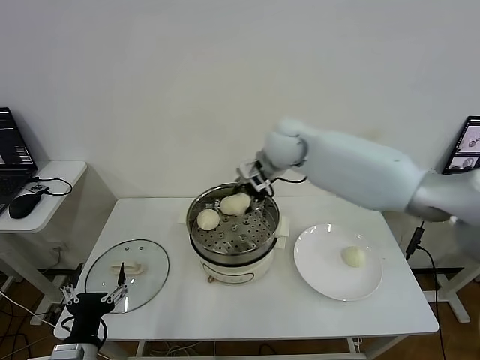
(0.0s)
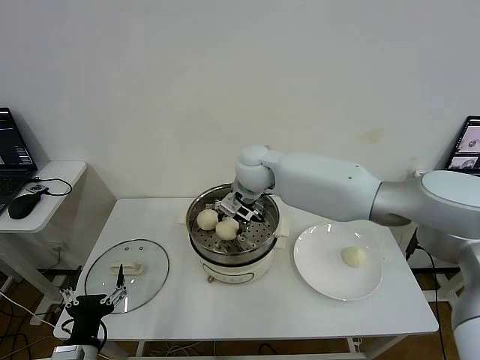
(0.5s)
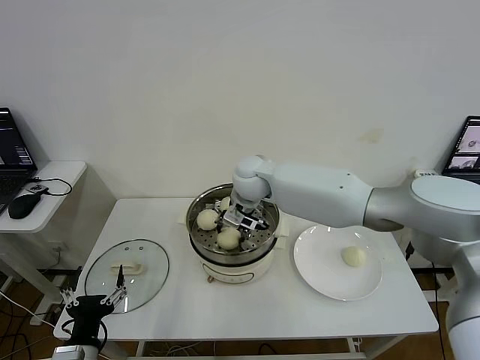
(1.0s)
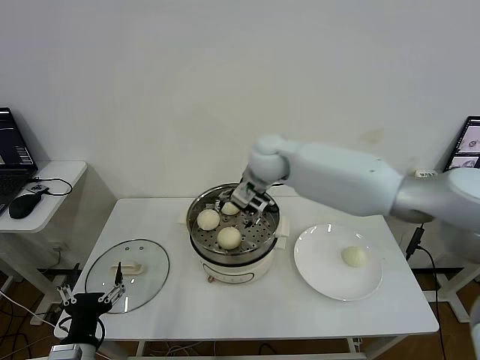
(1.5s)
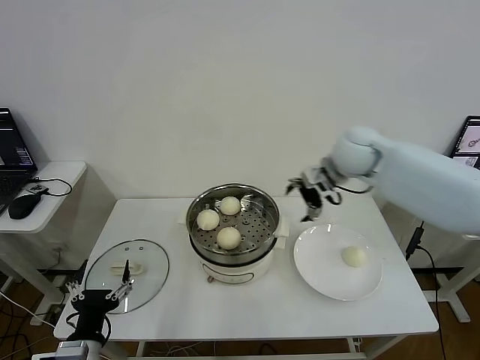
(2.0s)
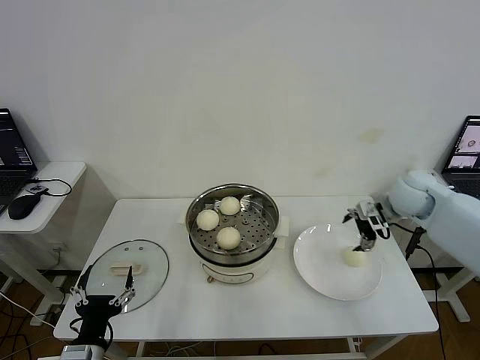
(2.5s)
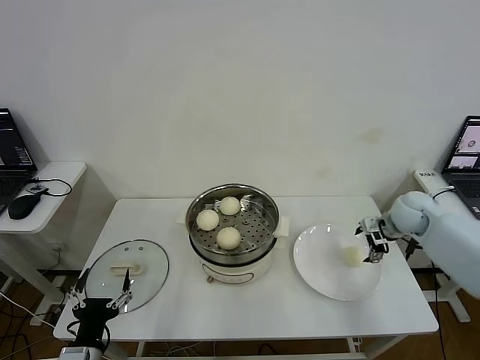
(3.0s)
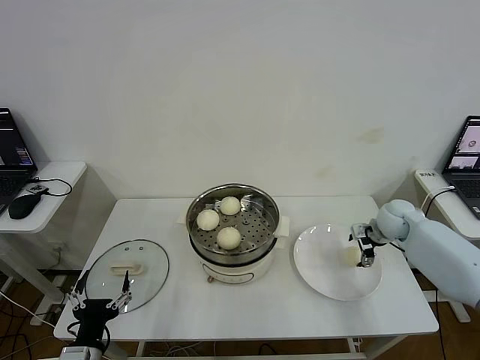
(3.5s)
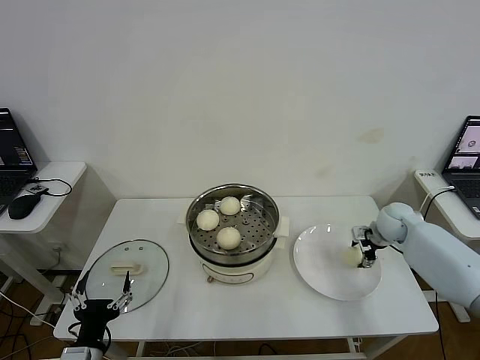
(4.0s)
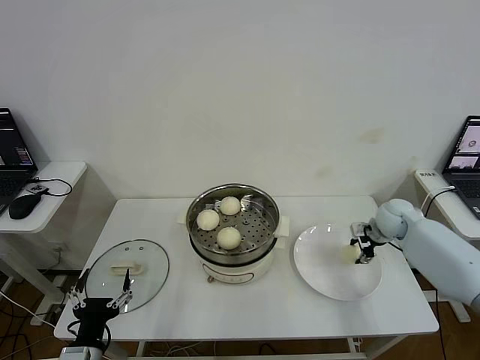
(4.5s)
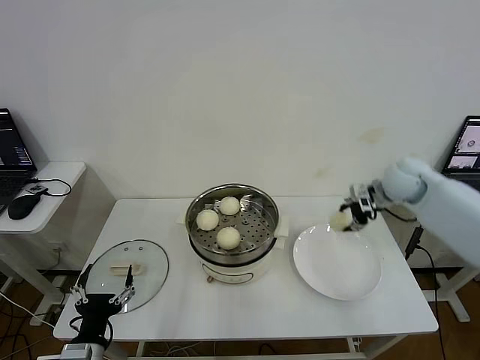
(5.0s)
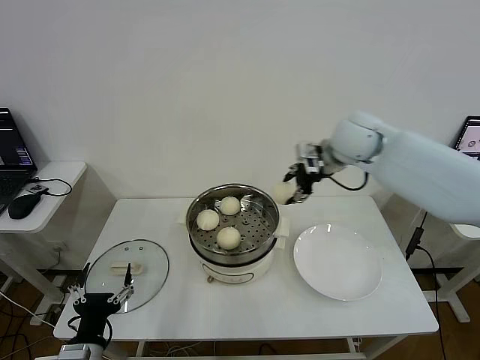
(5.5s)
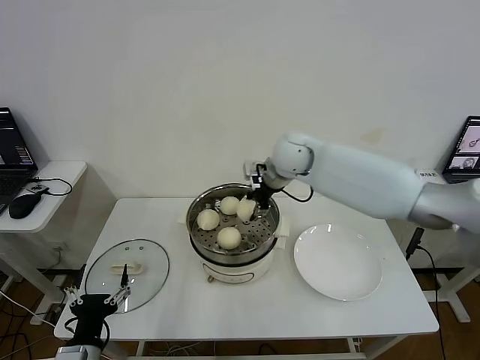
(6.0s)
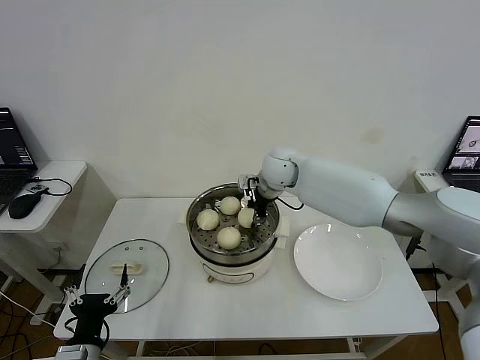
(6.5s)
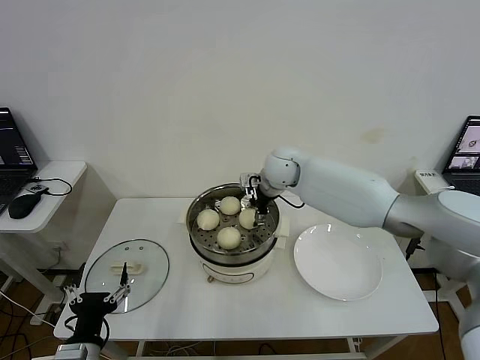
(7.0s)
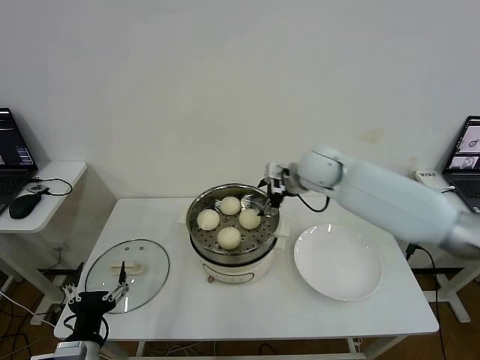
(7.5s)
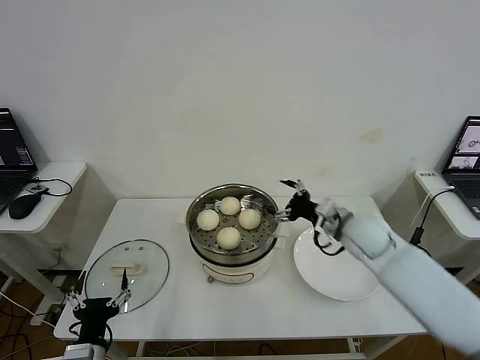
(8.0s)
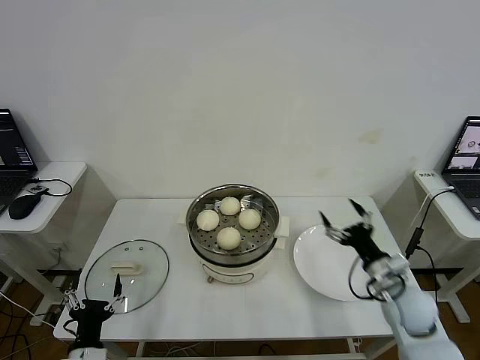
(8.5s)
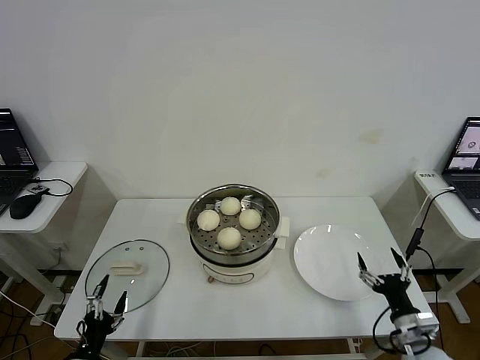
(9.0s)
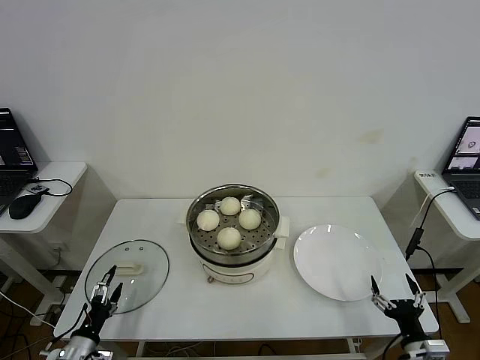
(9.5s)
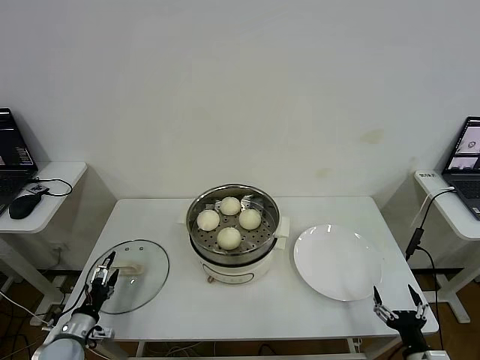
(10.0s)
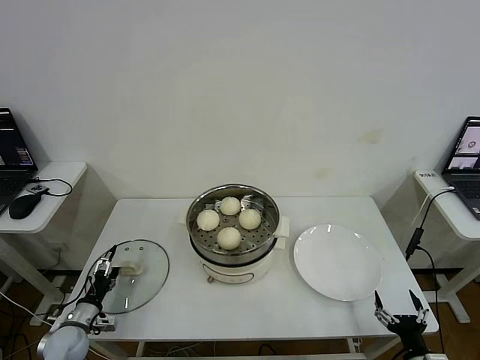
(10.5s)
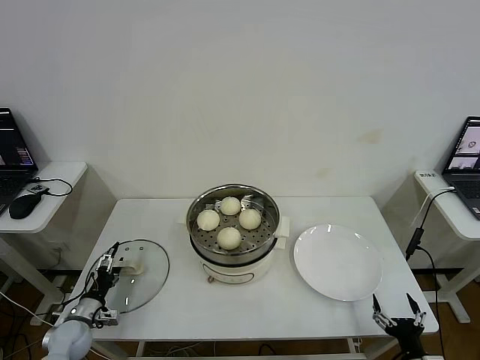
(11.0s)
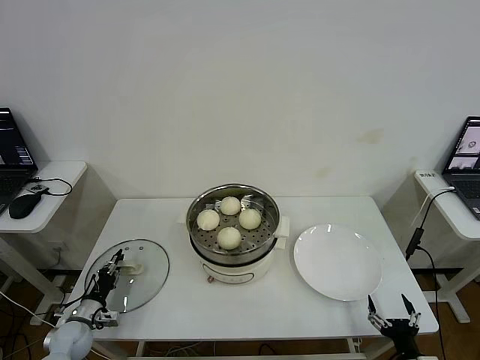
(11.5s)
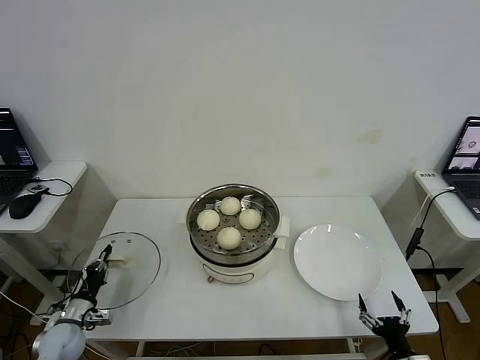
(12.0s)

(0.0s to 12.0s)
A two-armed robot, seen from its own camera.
Step, 1.5s - 4.0s: Grasp the baozi in the plate with right gripper.
Step, 4.5s - 7.0s: Place the baozi on the steamer with right gripper.
Step, 7.5s - 11.5s: Grasp the pot lid with left gripper.
0.0s - 2.0s: The right gripper shifts some 20 cm to the right, and opens up.
2.0s - 4.0s: The right gripper is displaced downward and to the right by approximately 25 cm, and closes.
4.0s - 6.0s: The right gripper is displaced to the left and upward by roughly 35 cm.
6.0s - 8.0s: The right gripper heads to the right, backward and downward, covering approximately 25 cm, and opens its fingers.
8.0s - 10.0s: The left gripper is displaced to the left, downward and forward by approximately 20 cm. The right gripper shifts about 35 cm backward, downward and to the right.
10.0s - 12.0s: The left gripper closes its fingers.

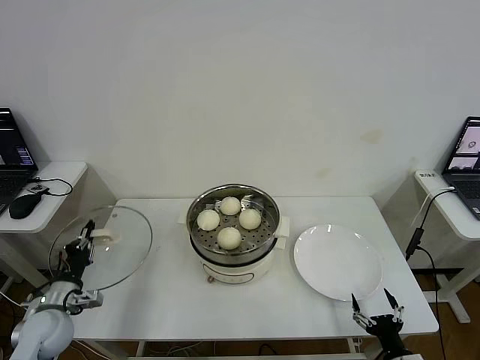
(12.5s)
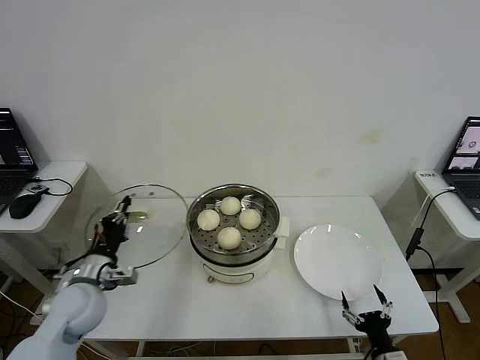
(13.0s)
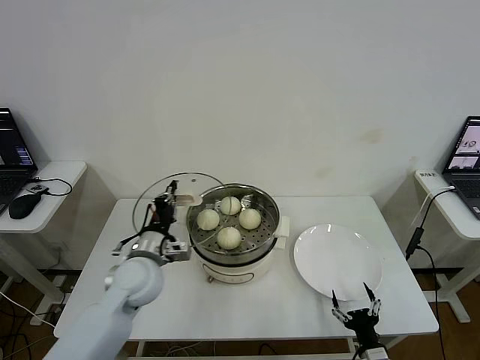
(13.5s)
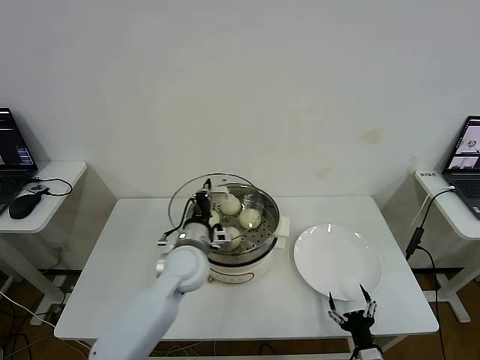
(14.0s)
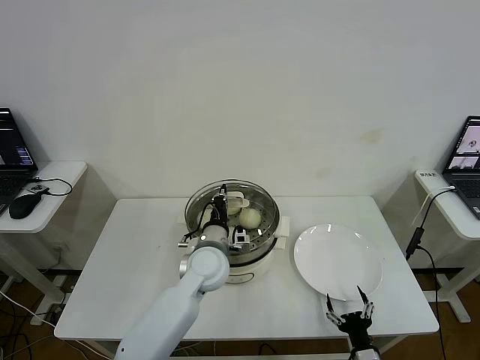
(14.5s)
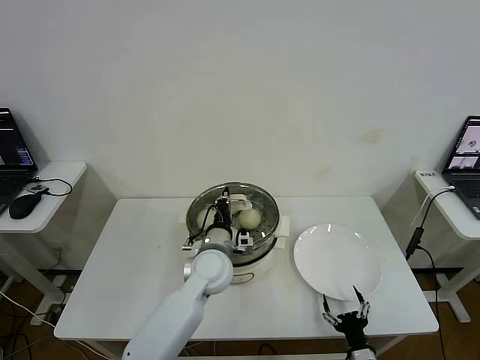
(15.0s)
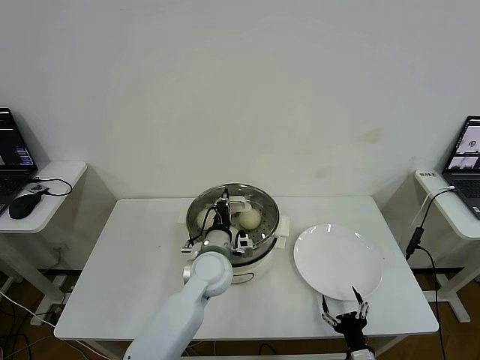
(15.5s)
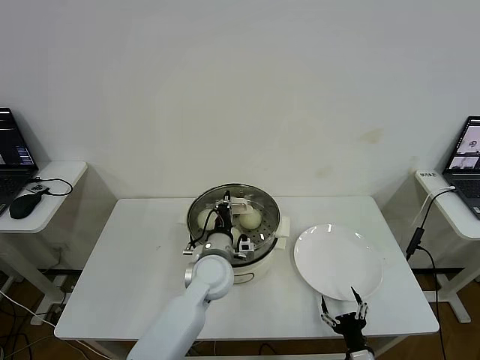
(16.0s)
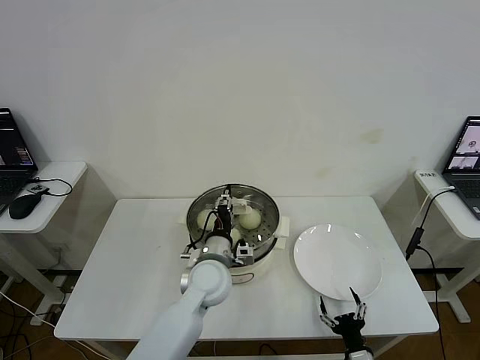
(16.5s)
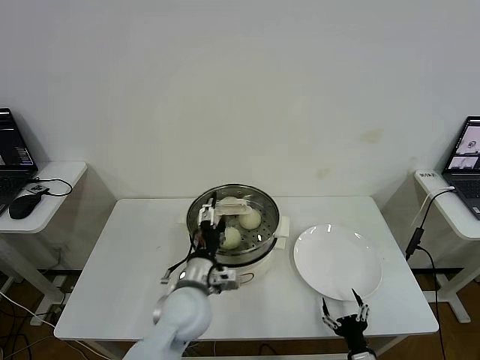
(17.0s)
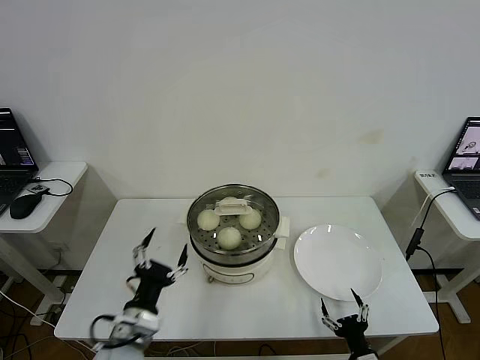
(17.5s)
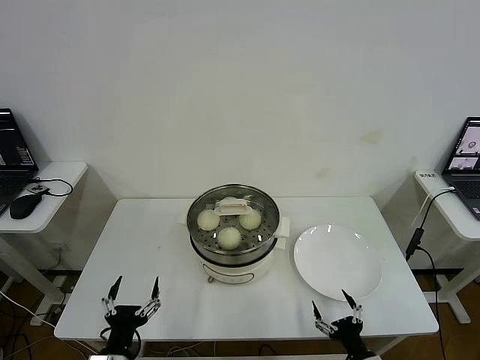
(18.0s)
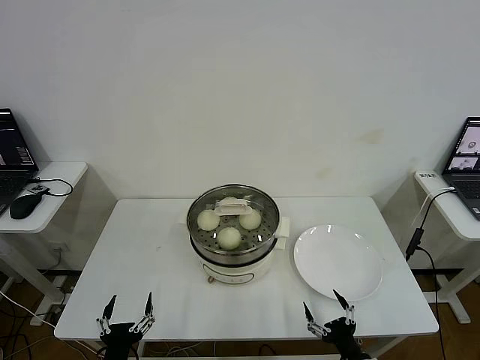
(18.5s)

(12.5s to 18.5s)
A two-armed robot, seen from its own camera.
Step, 12.5s - 17.0s: Place the pot lid on the steamer with left gripper.
12.5s - 14.5s: The right gripper moves to the left, about 5 cm. The left gripper goes approximately 35 cm to the right.
14.5s - 16.5s: The left gripper opens its fingers.
16.5s - 18.5s: The left gripper moves backward and to the left, approximately 35 cm, and opens, while the right gripper shifts roughly 5 cm upward.

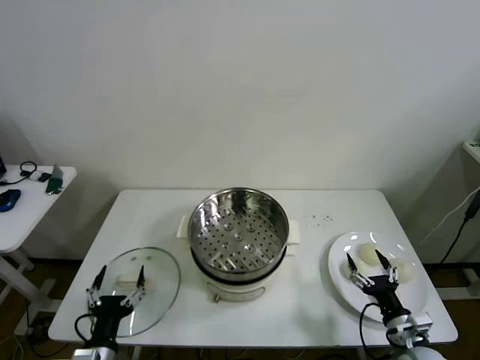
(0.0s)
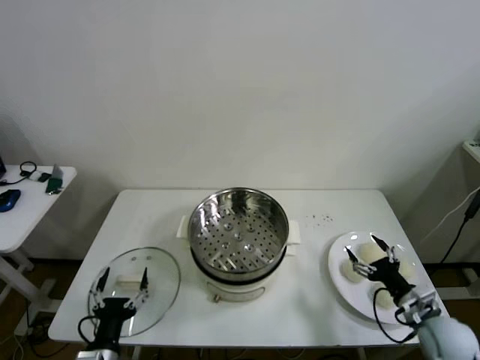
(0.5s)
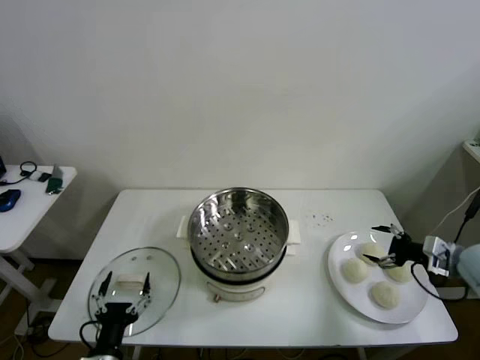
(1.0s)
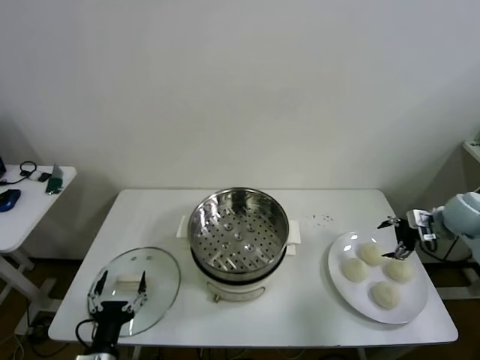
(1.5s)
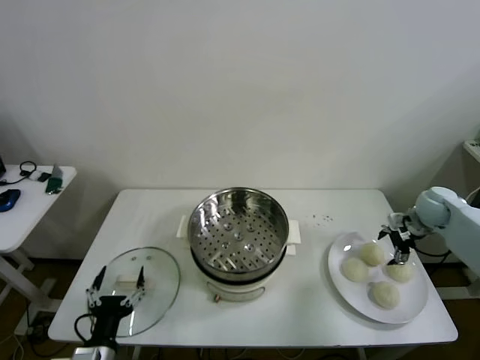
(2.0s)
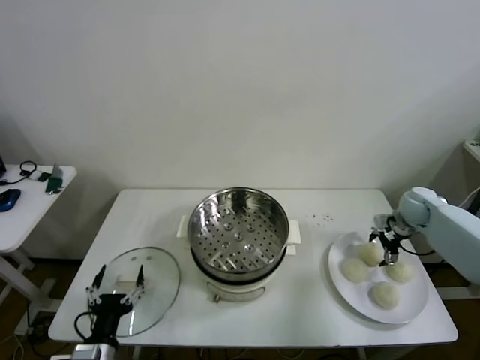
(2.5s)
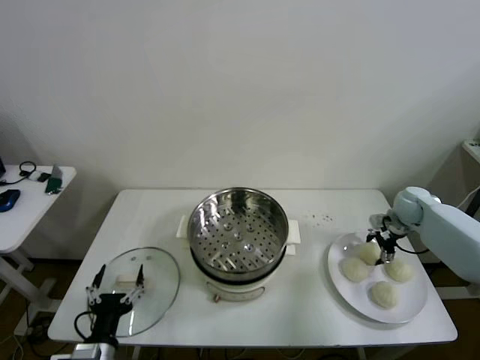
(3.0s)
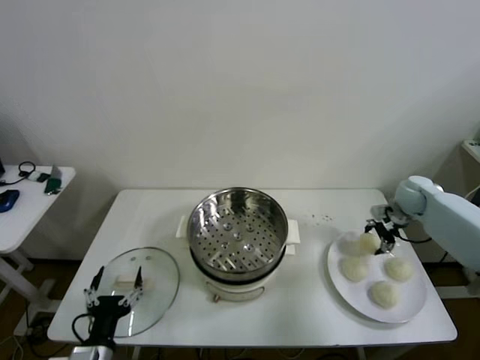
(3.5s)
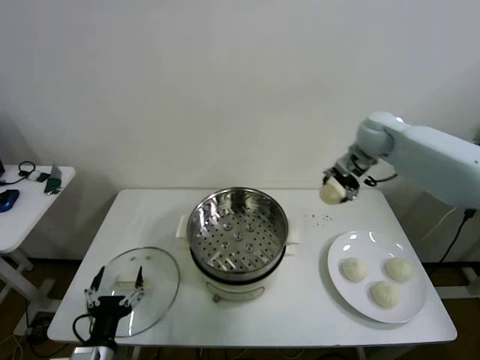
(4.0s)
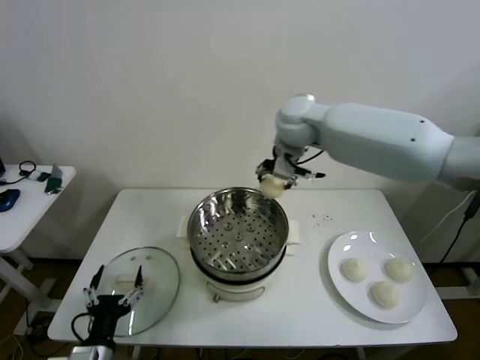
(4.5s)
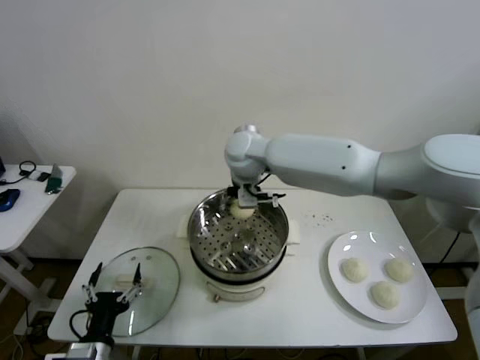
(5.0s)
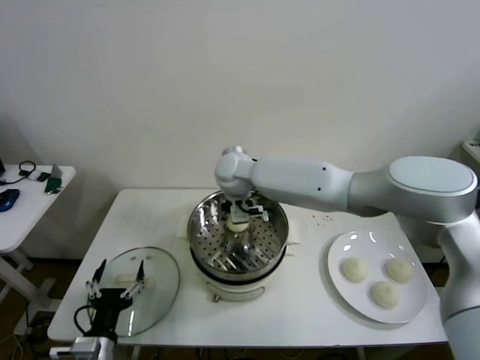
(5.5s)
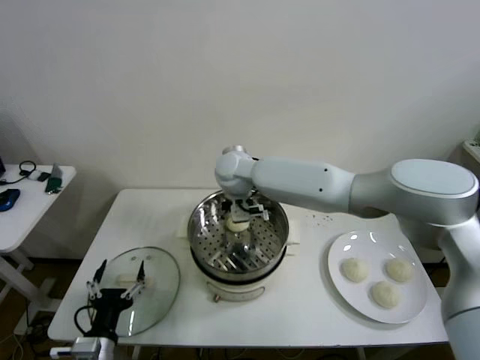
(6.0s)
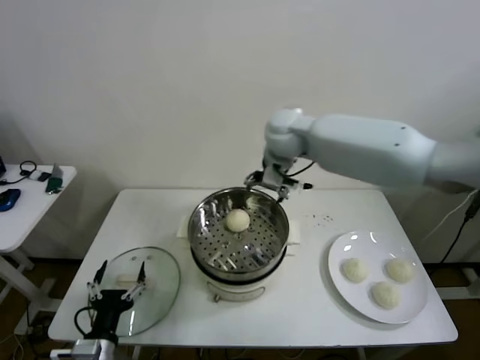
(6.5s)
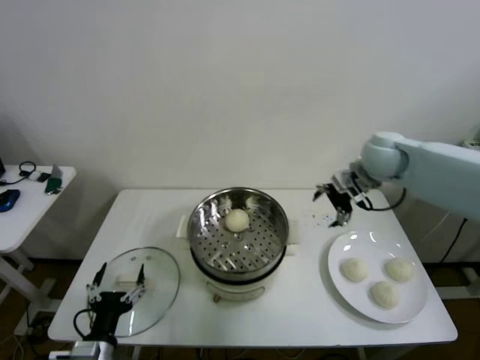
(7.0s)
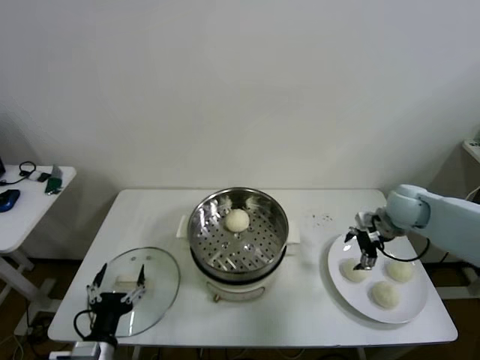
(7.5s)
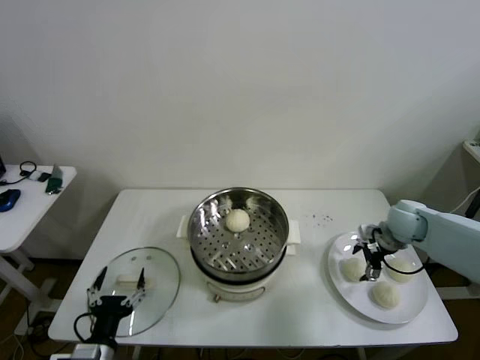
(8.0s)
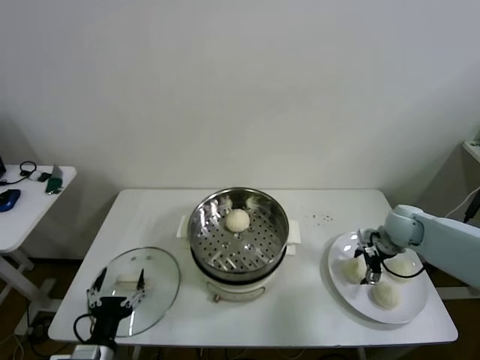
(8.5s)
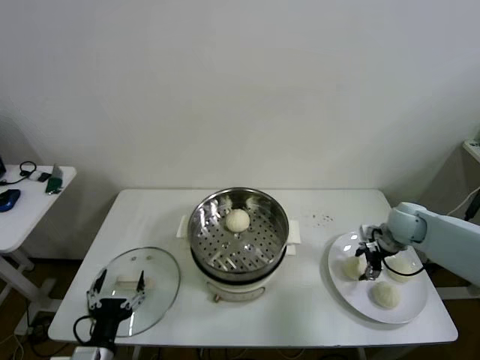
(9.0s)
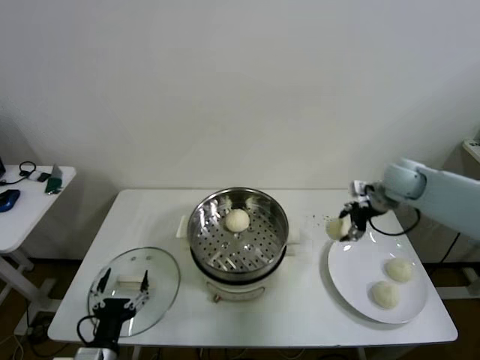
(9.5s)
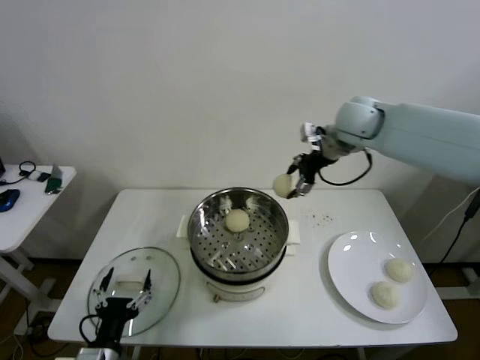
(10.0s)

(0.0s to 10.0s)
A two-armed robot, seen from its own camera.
Step, 0.0s - 3.0s: Grasp the baozi in the plate with right gripper.
Step, 3.5s - 5.5s: Place the baozi on the steamer with right gripper.
Step, 6.0s - 8.5s: Grasp the baozi in the plate with right gripper.
2.0s - 4.0s: The right gripper moves to the left and upward, approximately 30 cm, and closes its fingers.
4.0s - 6.0s: The right gripper travels to the left by some 30 cm, and opens up.
6.0s - 8.0s: The right gripper travels to the right by some 40 cm.
8.0s - 10.0s: The right gripper travels upward and to the left by roughly 30 cm, and closes its fingers.
